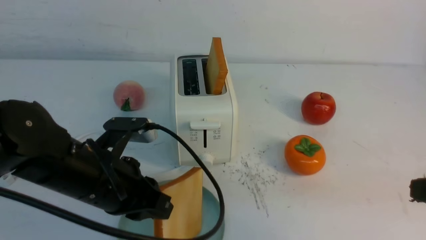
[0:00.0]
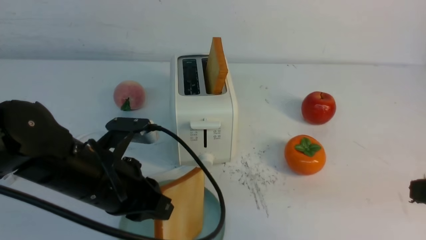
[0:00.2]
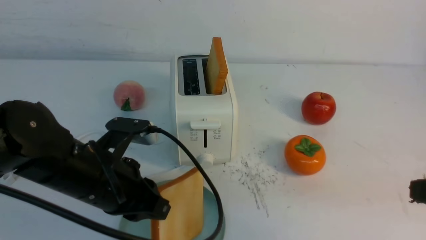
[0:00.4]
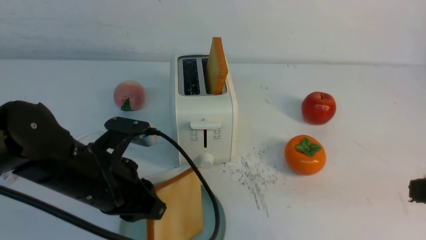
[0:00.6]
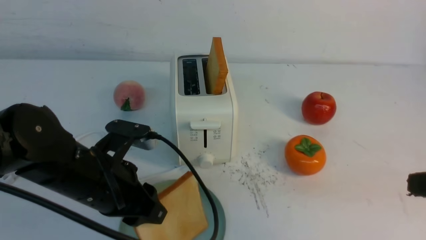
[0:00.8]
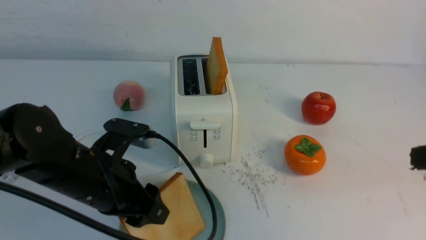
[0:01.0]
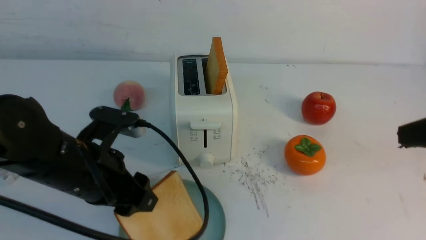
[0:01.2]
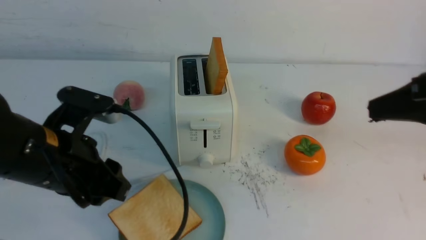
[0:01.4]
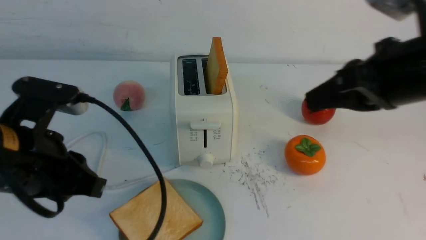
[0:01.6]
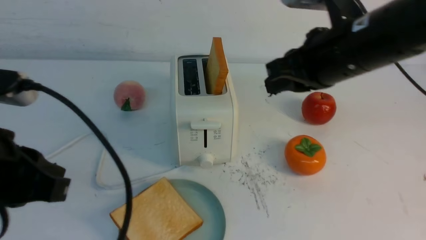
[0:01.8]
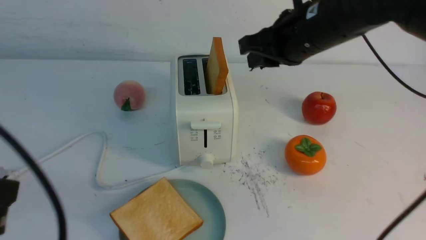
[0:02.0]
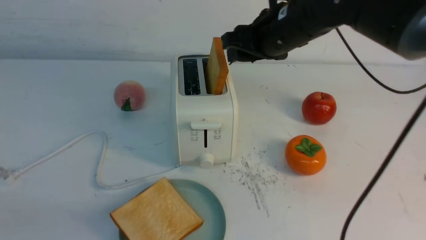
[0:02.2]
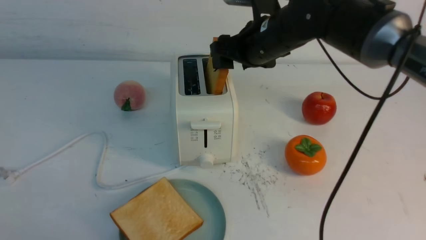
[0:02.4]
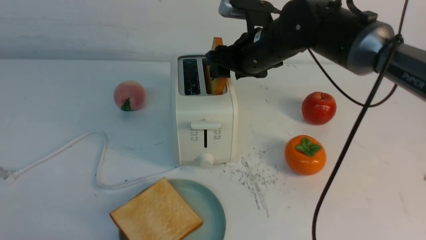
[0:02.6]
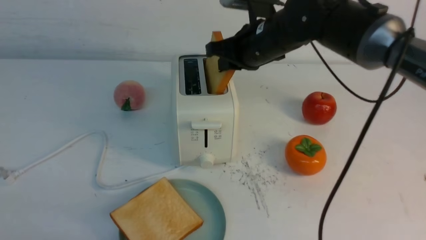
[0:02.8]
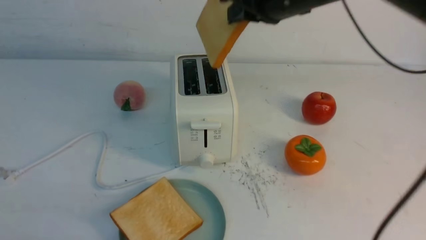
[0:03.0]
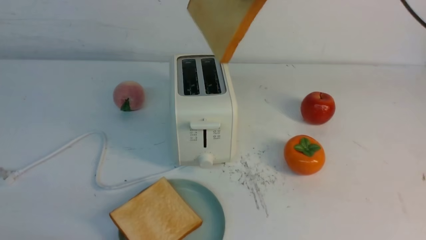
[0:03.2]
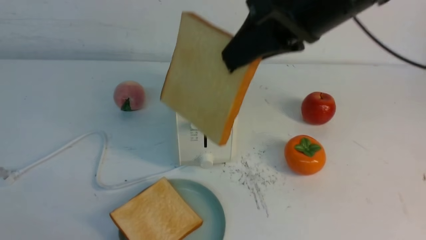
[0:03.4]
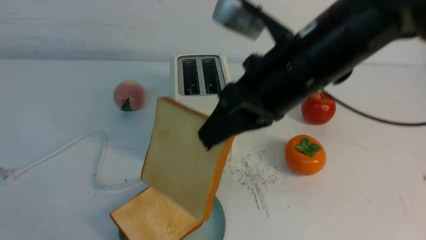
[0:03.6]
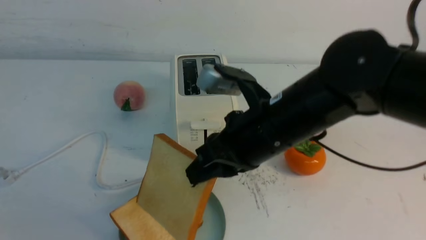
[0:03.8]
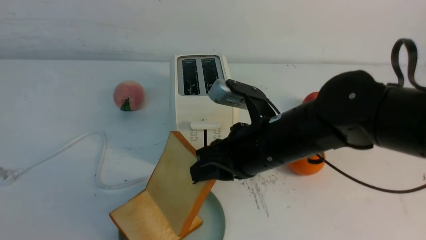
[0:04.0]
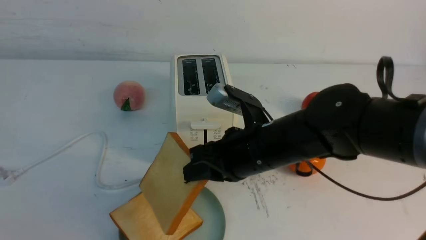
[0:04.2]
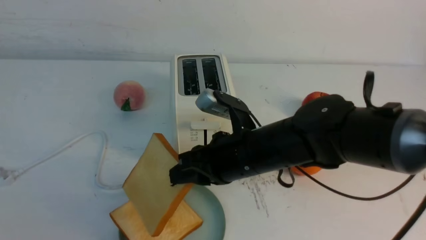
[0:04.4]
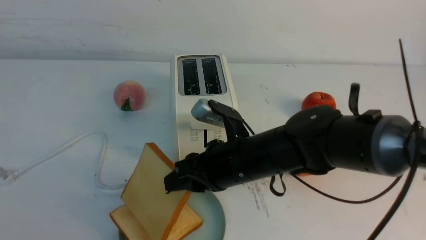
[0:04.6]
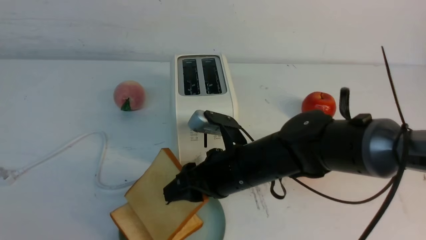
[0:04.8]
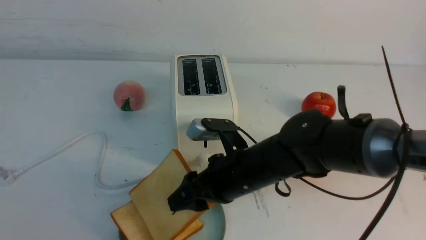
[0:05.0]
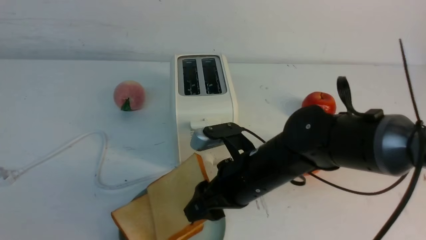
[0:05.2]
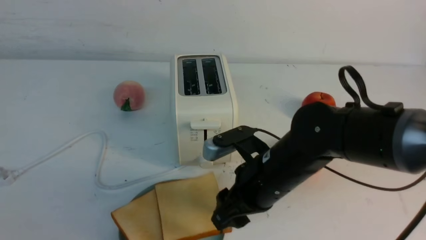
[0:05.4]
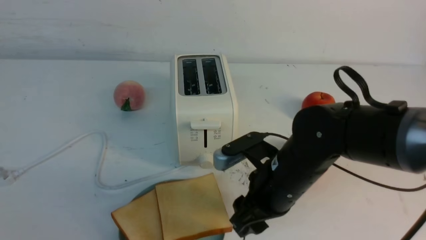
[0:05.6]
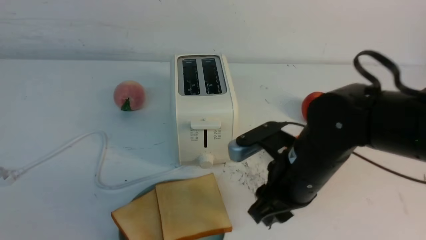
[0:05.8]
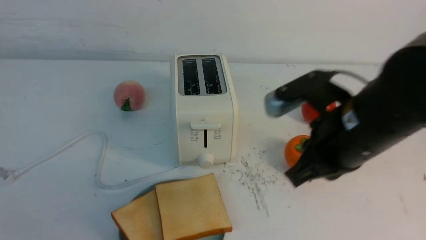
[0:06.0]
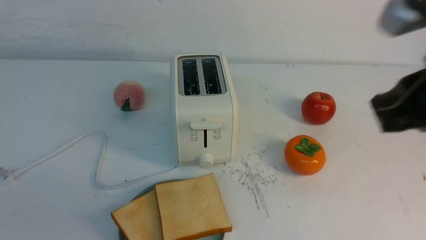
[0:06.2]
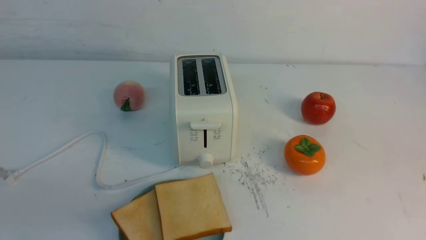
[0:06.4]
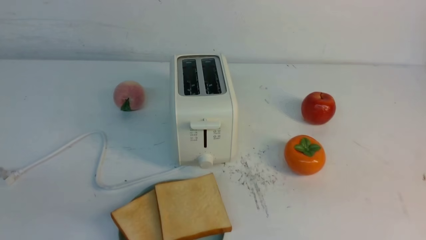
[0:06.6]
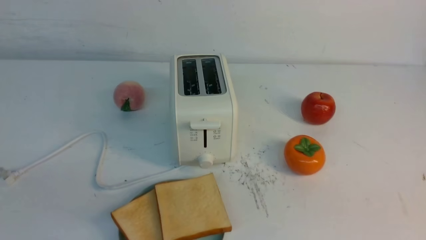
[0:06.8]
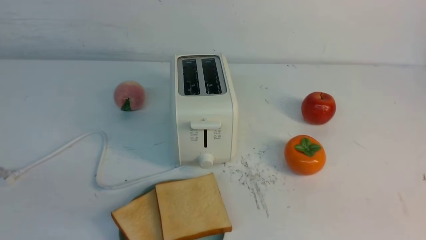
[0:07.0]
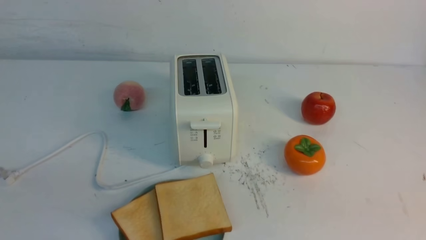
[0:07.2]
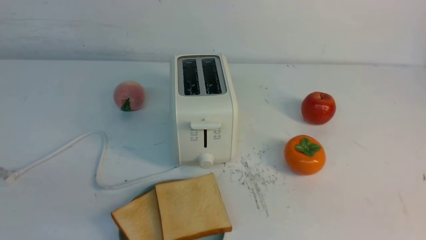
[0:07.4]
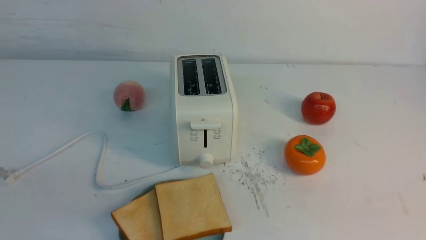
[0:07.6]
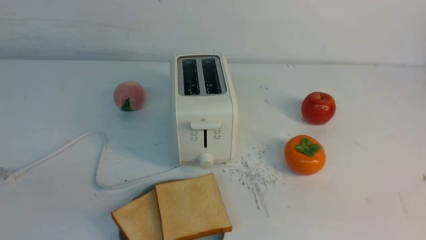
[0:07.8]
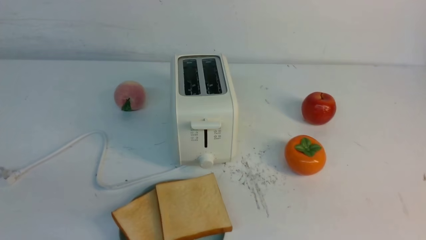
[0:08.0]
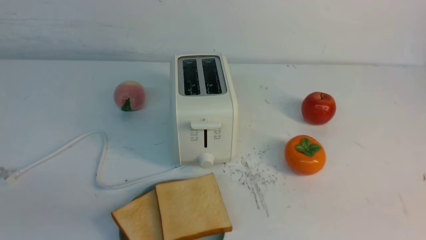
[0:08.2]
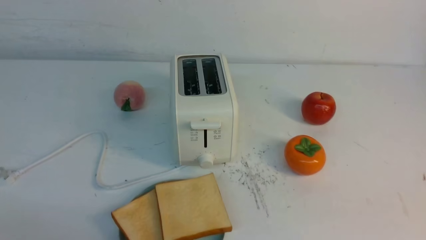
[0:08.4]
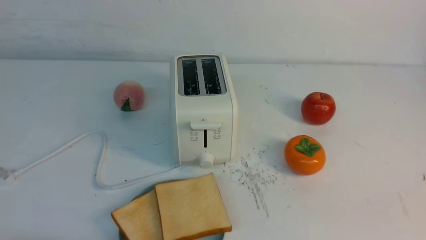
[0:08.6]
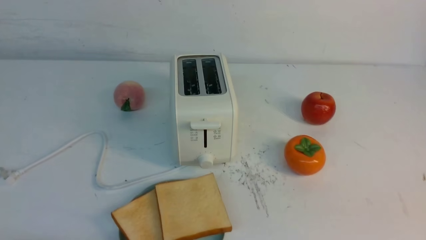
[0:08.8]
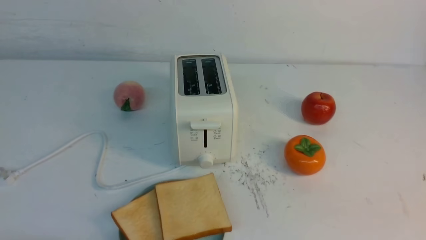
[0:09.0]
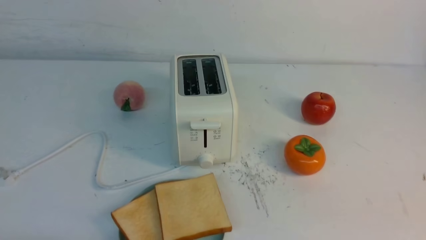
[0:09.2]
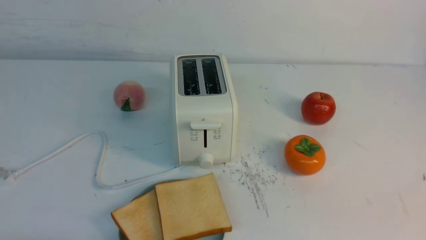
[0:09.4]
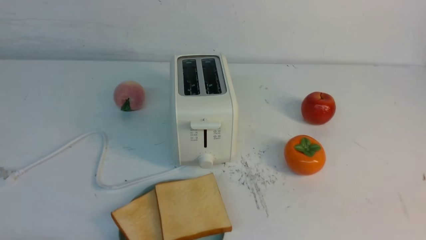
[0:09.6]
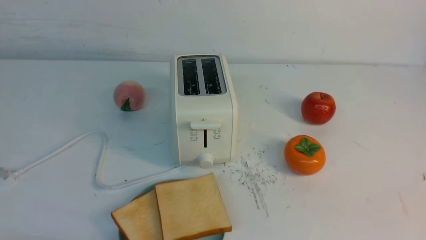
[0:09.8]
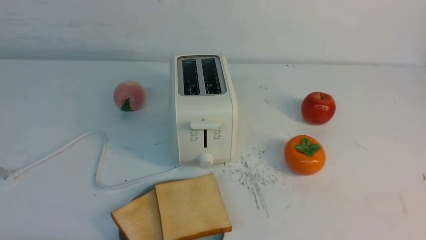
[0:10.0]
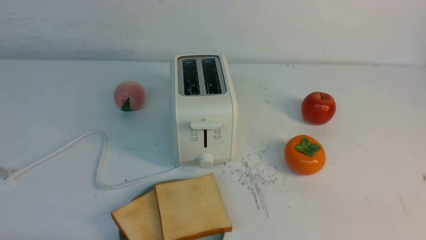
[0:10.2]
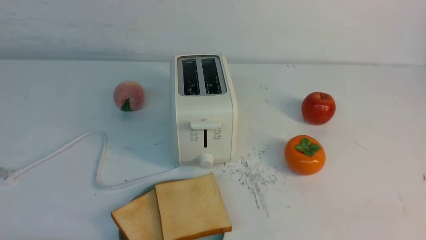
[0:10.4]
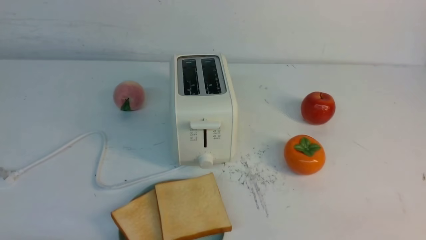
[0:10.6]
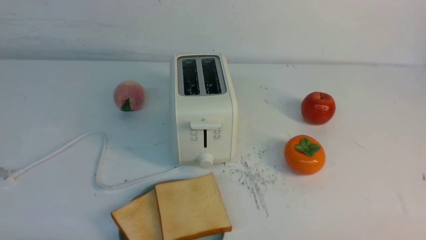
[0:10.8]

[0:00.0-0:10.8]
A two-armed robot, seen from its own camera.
Task of the whole recording: take toasted bread from bread machine on white table place on plate.
Step, 0:01.4 to 0:02.8: use the right arm to take out a slice of bread.
Step, 0:03.2 to 0:05.4: use the right arm to put a slice of bread into the plate.
0:00.0 to 0:01.6: The left gripper travels upward and to the left by about 10 cm, and opens, then closes again. Meanwhile the right gripper goes some 15 cm forward, to the left and upward.
0:01.6 to 0:03.0: The left gripper travels backward and to the left by some 15 cm; the right gripper goes some 15 cm forward and to the left, and opens and closes again.
0:03.0 to 0:04.6: The right gripper moves downward, roughly 20 cm.
0:04.6 to 0:06.2: The right gripper shifts some 30 cm upward, to the right and backward, and closes.
0:06.2 to 0:07.8: The right gripper shifts approximately 20 cm backward, to the right and downward.

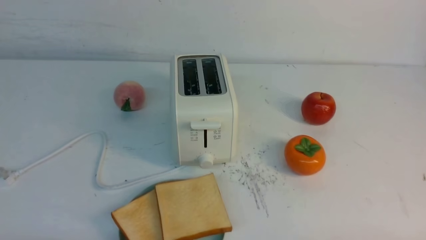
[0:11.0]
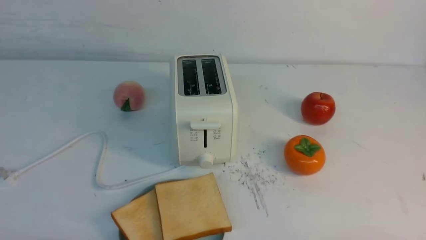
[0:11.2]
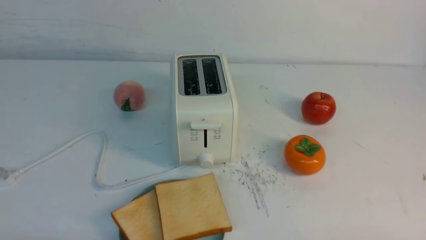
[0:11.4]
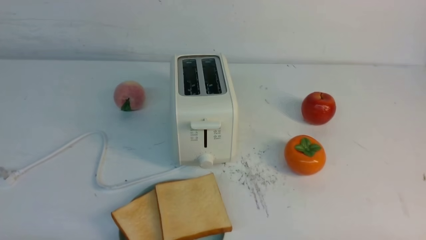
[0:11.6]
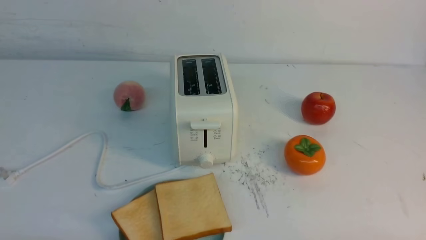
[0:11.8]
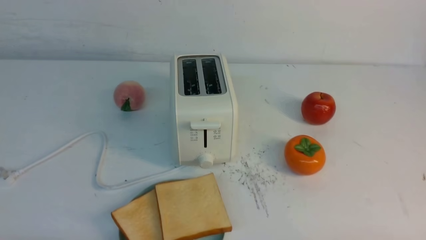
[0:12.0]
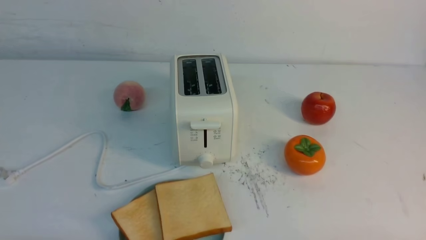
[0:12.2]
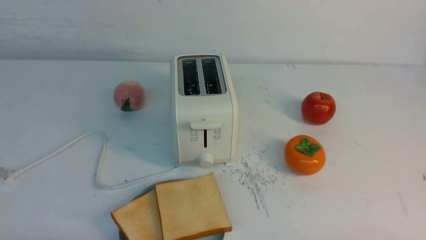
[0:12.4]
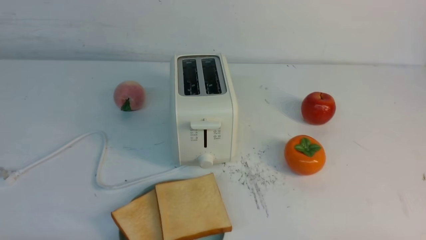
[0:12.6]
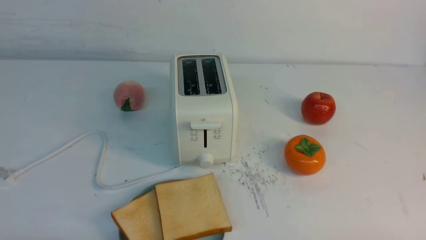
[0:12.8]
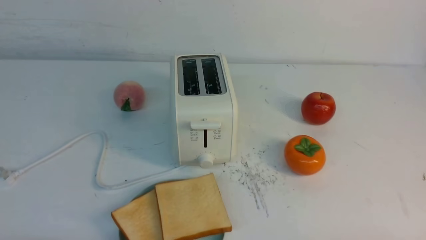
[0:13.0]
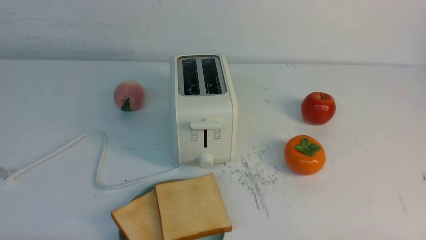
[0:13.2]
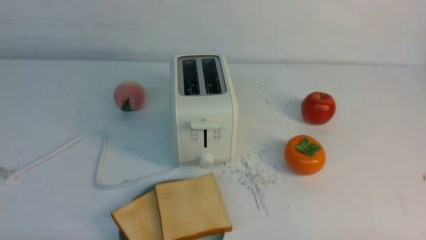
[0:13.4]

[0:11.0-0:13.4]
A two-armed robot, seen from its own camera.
Task of the whole recording: take toasted bread from bread machine on white table place on plate.
0:12.2 to 0:13.4: The two grippers keep their place.
